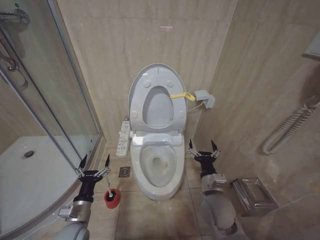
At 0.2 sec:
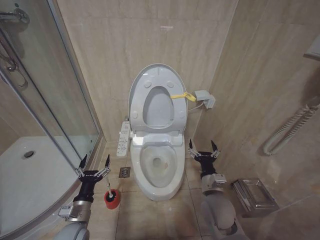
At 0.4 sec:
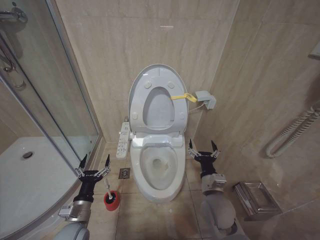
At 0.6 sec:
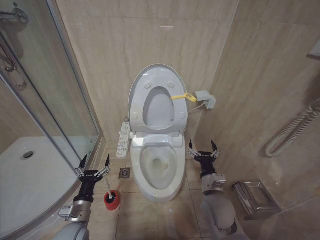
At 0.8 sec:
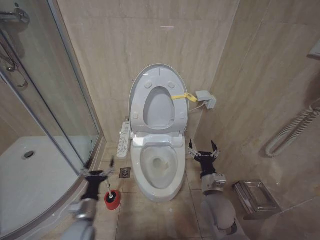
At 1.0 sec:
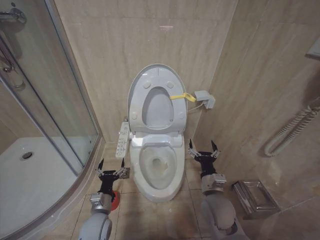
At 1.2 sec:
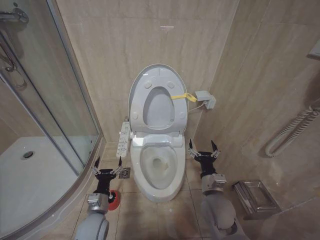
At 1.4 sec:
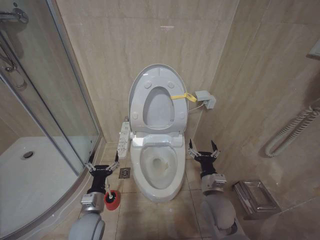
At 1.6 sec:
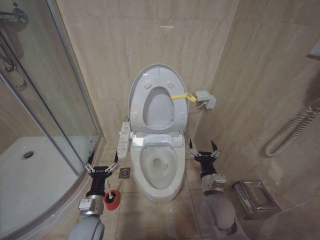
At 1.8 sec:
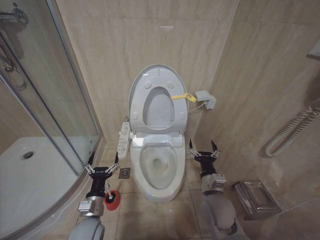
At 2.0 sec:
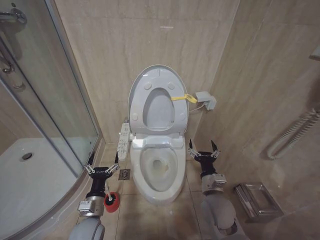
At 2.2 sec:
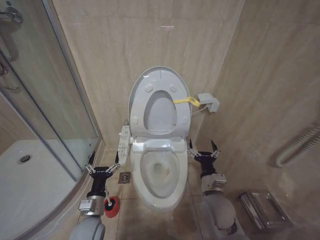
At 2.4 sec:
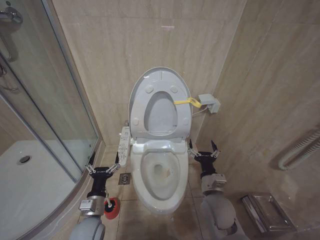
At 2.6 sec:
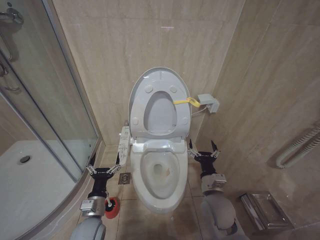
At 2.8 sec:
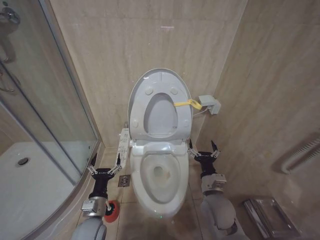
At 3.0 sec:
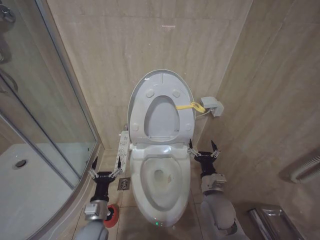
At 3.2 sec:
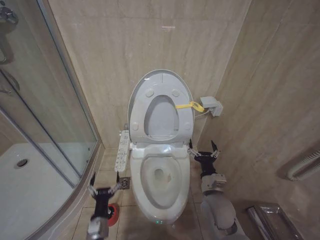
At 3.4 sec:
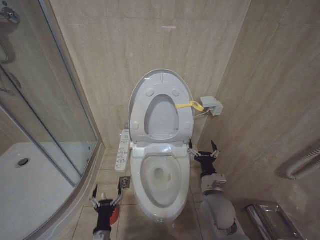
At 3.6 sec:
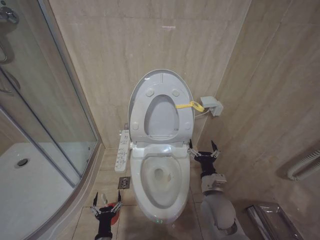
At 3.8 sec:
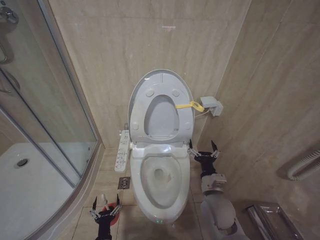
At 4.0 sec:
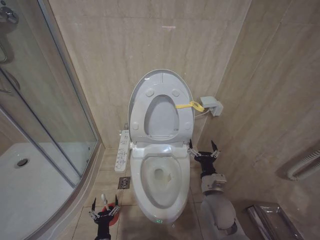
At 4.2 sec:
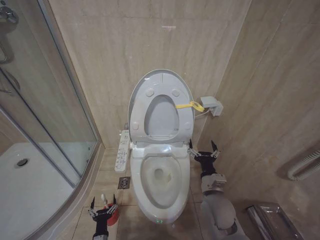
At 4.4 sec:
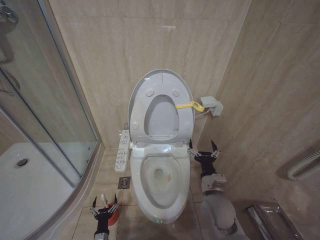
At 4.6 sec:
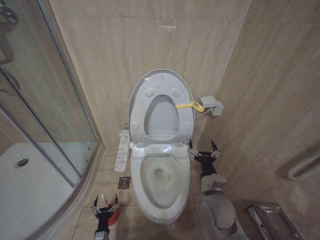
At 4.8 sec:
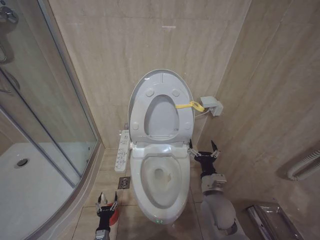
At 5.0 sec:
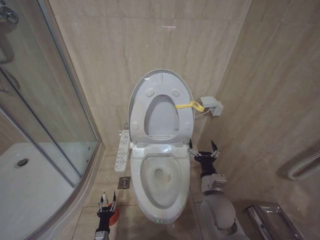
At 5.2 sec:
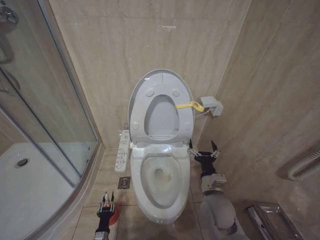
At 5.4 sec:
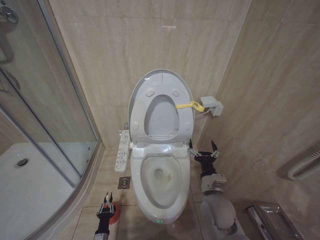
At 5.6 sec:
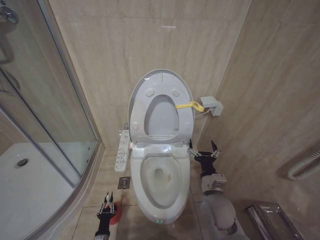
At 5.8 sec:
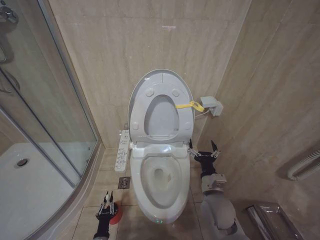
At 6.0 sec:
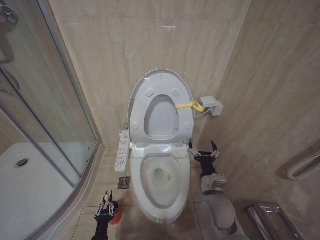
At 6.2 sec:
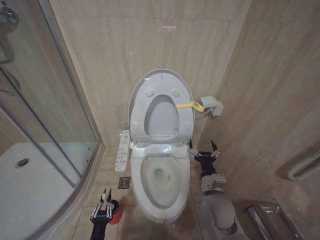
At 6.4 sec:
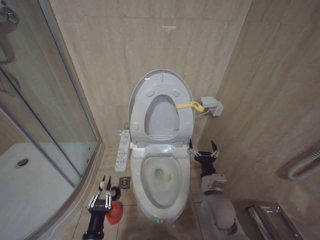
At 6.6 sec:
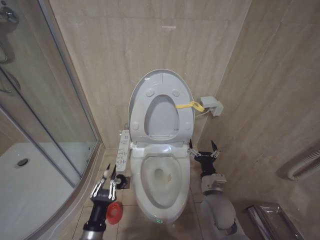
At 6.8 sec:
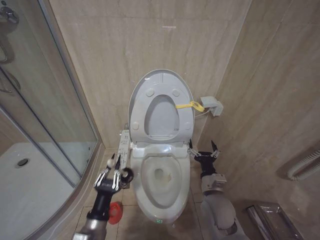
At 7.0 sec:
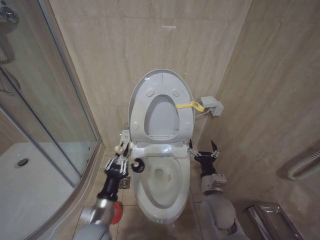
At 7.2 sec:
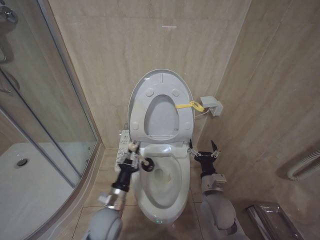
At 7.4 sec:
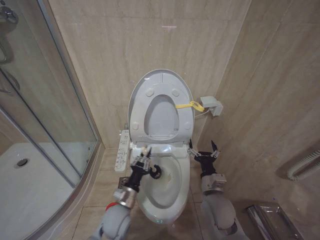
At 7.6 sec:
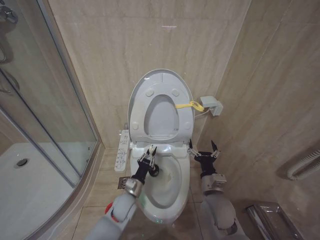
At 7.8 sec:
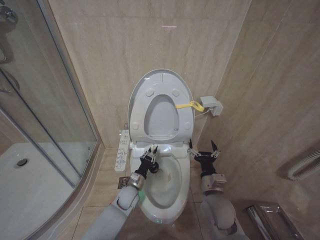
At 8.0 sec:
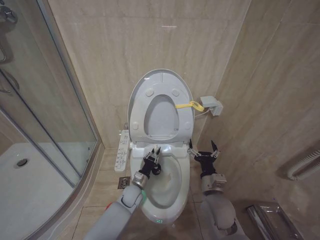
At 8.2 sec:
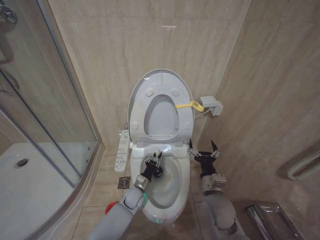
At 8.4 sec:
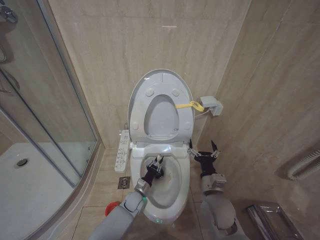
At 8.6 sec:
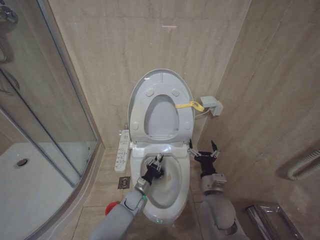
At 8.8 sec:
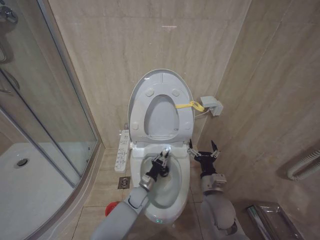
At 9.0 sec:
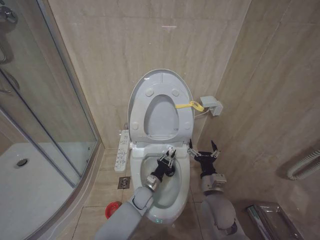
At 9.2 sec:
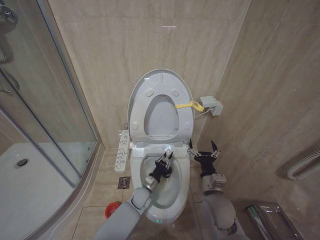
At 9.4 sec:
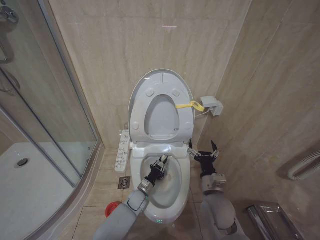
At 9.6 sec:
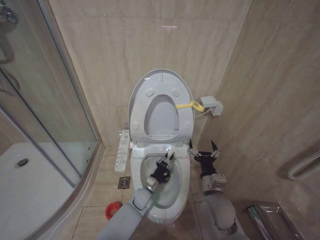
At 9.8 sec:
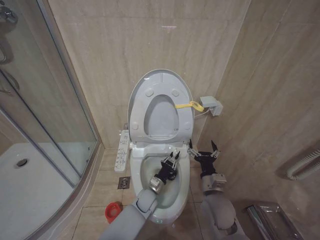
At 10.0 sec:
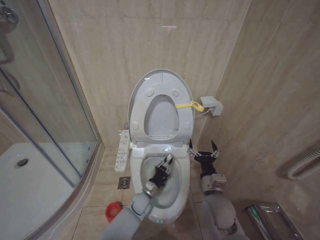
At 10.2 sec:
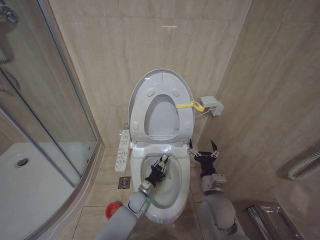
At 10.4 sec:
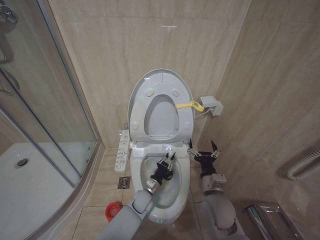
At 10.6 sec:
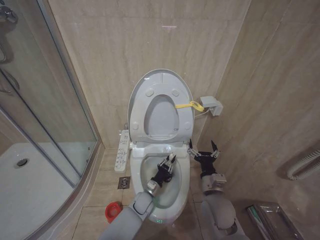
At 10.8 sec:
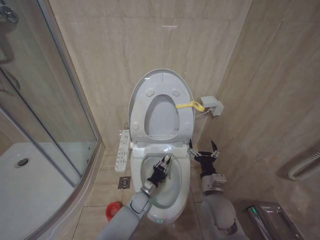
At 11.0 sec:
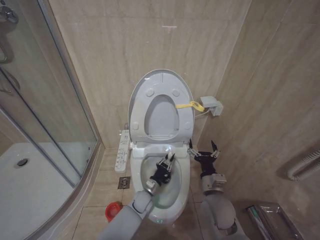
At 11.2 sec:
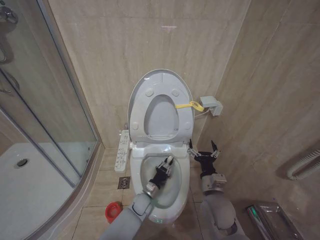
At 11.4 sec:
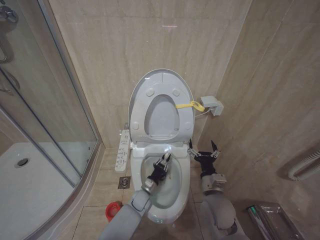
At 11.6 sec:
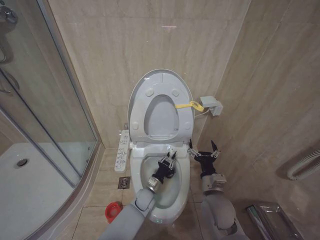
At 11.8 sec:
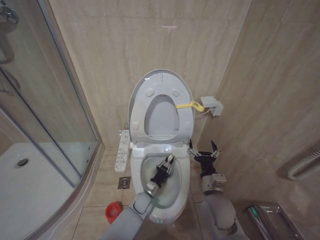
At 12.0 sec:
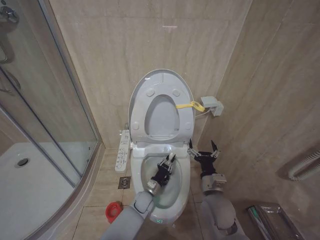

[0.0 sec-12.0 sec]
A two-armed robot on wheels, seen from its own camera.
Task of the whole recording: Open the toilet lid, clean the toilet bowl with a toilet brush, close the toilet lid, and flush.
1.6 sec to 3.0 sec: The grippers make only small movements.
3.0 sec to 4.4 sec: The left gripper is displaced downward by about 25 cm.
4.4 sec to 6.0 sec: The left gripper closes its fingers.
6.0 sec to 7.6 sec: The left gripper goes about 25 cm upward, forward and to the right.
7.6 sec to 9.0 sec: The left gripper goes roughly 10 cm to the right, forward and downward.
9.0 sec to 10.4 sec: The left gripper moves up and down over some 5 cm, changing direction 2 times.

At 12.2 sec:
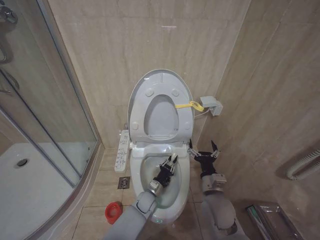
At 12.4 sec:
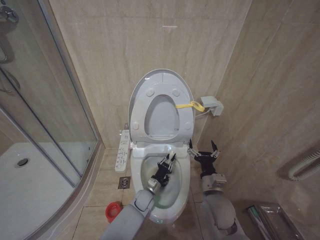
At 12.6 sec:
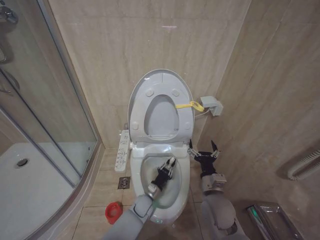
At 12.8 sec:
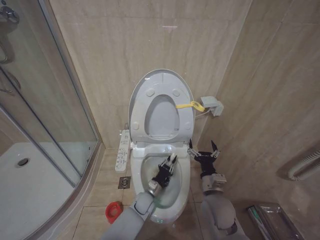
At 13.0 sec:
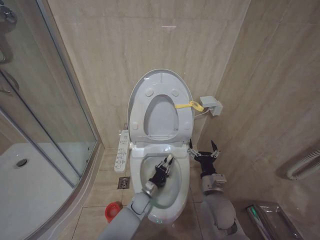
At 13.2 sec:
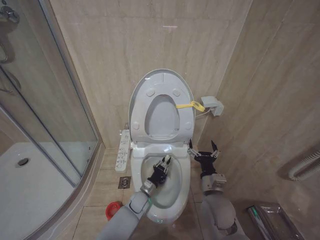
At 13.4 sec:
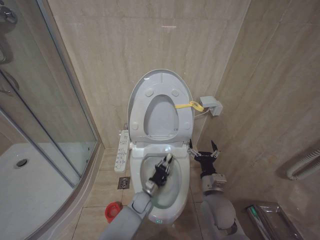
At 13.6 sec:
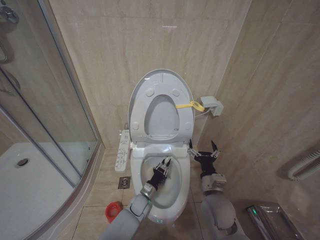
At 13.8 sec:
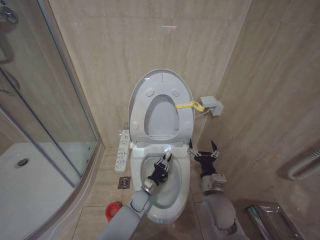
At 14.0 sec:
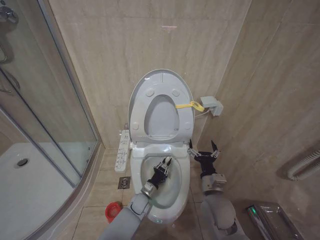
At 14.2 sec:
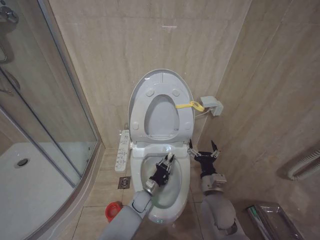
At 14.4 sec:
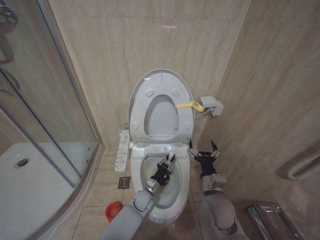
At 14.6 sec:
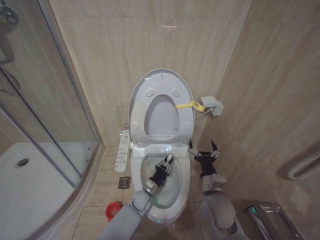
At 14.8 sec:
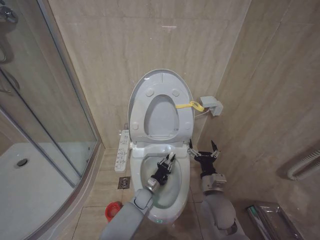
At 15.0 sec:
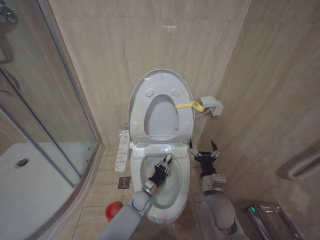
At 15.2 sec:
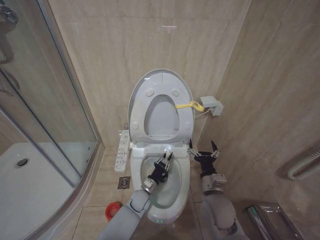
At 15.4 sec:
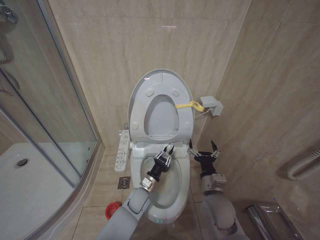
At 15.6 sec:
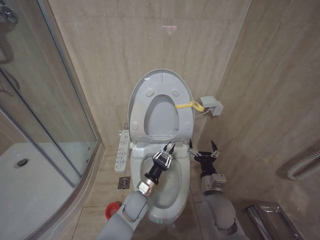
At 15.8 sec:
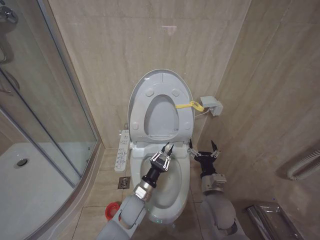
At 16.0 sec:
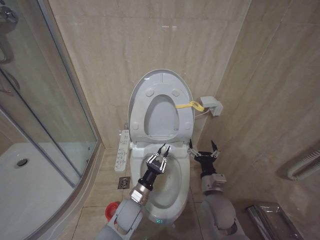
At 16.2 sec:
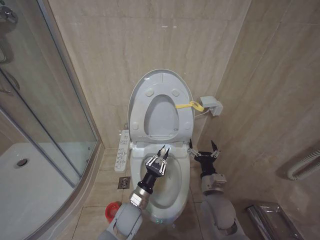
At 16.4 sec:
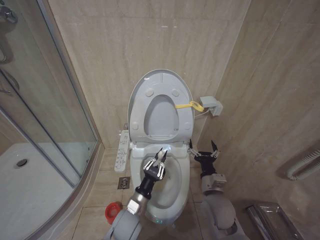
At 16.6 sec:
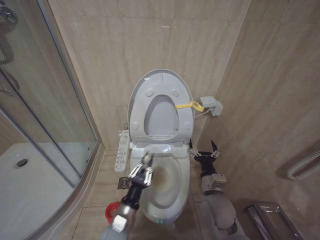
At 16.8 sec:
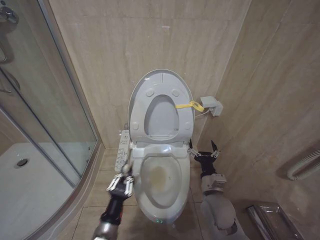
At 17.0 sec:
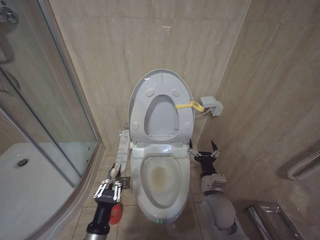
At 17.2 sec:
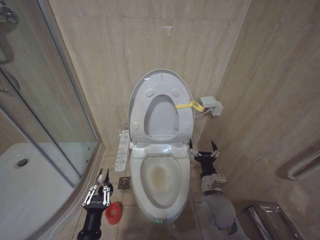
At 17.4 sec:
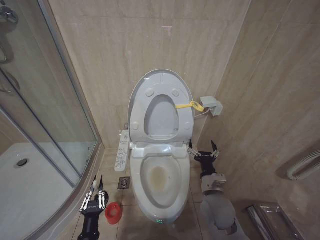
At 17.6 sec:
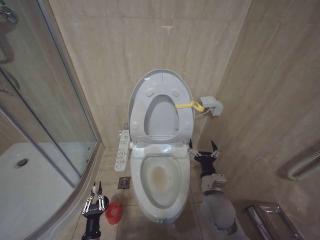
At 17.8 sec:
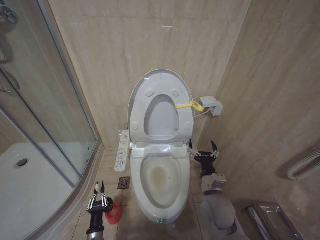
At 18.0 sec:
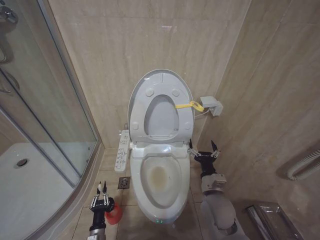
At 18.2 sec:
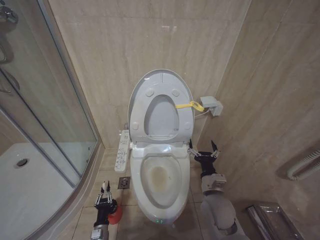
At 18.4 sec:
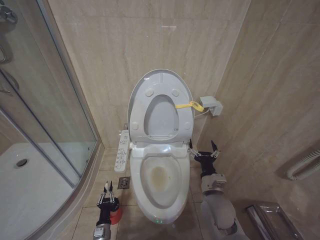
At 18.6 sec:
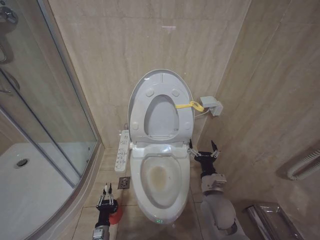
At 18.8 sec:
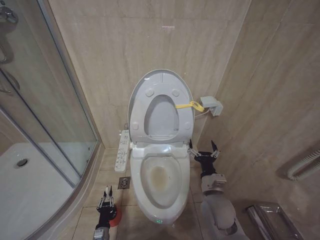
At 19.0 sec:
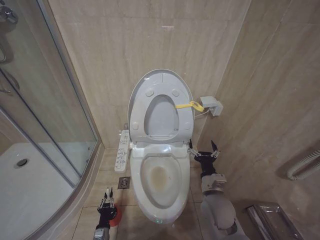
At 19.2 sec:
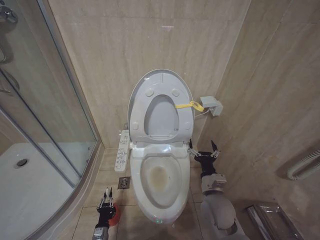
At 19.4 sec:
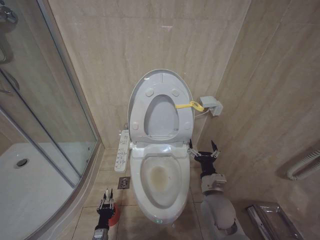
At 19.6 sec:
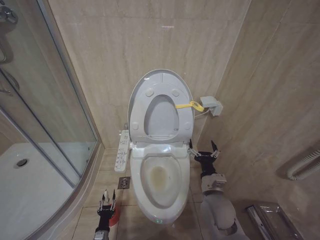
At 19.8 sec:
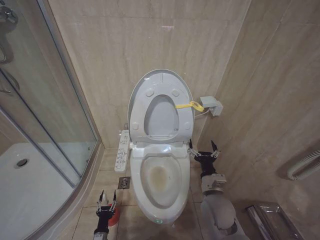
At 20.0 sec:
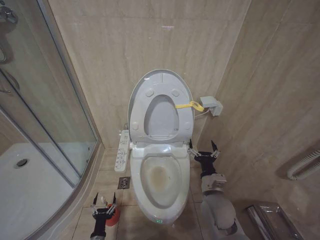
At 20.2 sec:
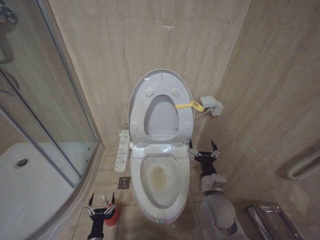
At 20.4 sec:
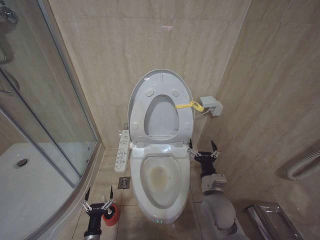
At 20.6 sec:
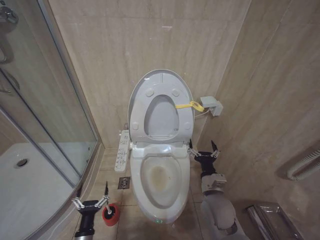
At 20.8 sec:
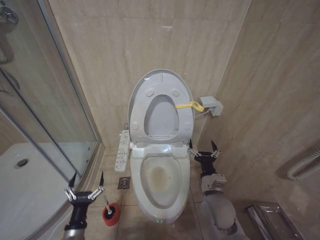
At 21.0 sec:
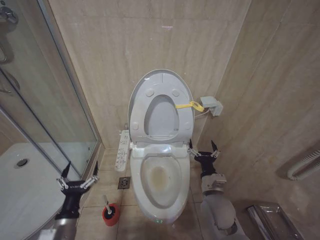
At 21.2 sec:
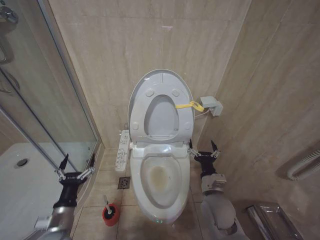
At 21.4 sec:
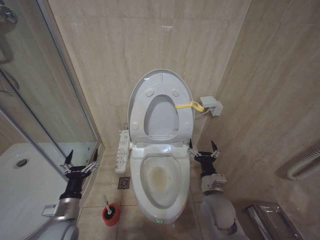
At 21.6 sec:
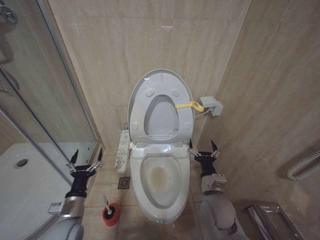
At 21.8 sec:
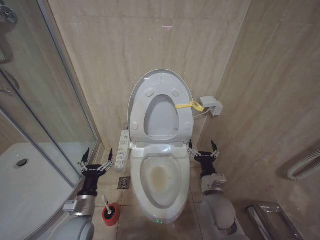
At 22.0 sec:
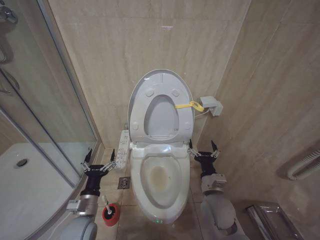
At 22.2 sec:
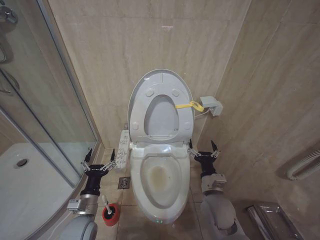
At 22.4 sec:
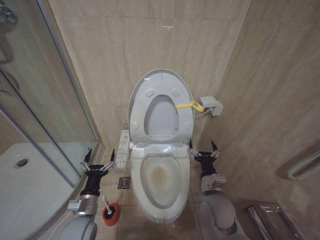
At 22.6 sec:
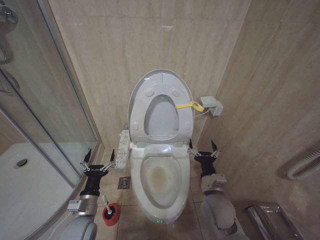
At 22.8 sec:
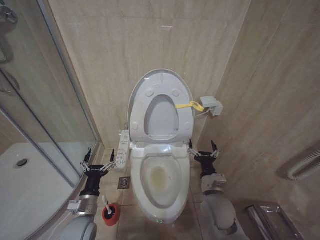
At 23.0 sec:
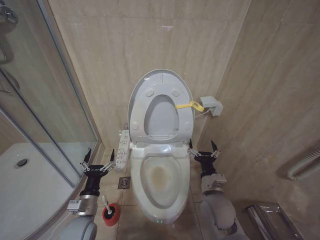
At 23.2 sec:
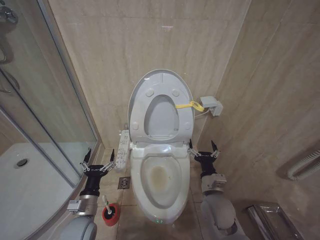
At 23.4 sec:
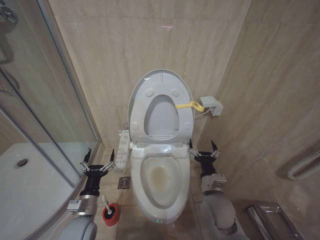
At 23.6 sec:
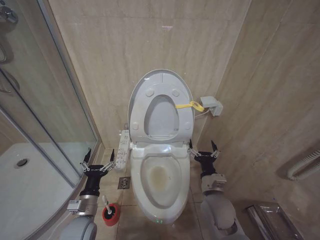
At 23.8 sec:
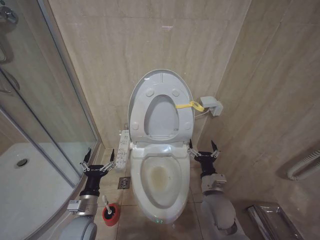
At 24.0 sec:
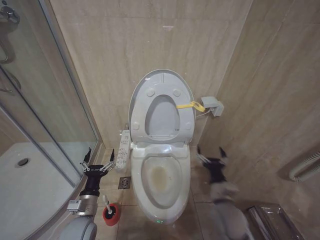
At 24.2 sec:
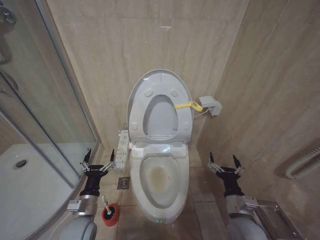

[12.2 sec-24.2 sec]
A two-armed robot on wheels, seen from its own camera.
Task of the whole recording: Open the toilet lid, clean the toilet bowl with a toilet brush, close the toilet lid, and flush.
12.2 sec to 13.8 sec: The grippers stay close to where they were, moving slightly.
15.2 sec to 16.6 sec: The left gripper goes about 20 cm backward and upward.
16.6 sec to 18.2 sec: The left gripper heads downward and to the left, covering about 25 cm.
19.8 sec to 21.2 sec: The left gripper travels upward by roughly 30 cm, and opens.
21.2 sec to 22.6 sec: The left gripper heads to the right, covering some 5 cm.
22.6 sec to 24.2 sec: The right gripper is displaced to the right and backward by about 10 cm.
